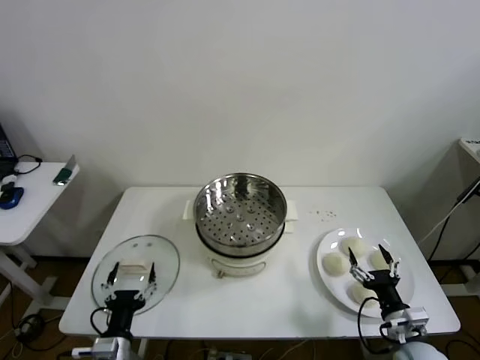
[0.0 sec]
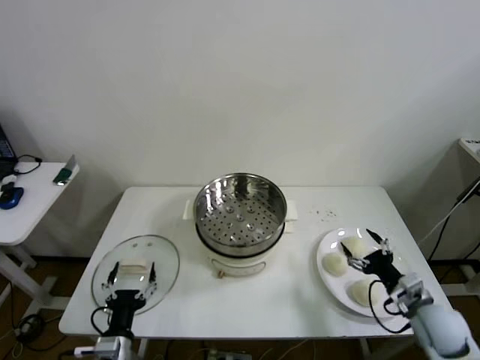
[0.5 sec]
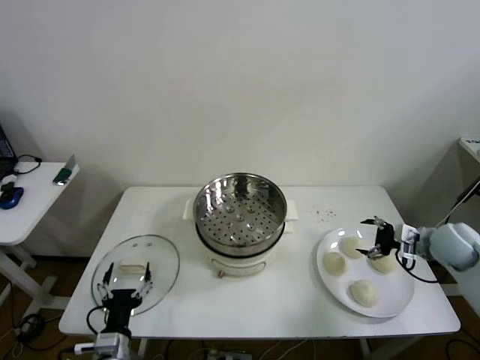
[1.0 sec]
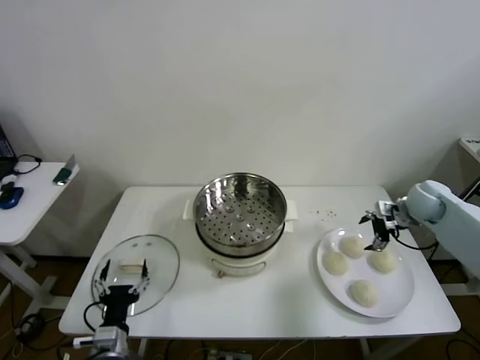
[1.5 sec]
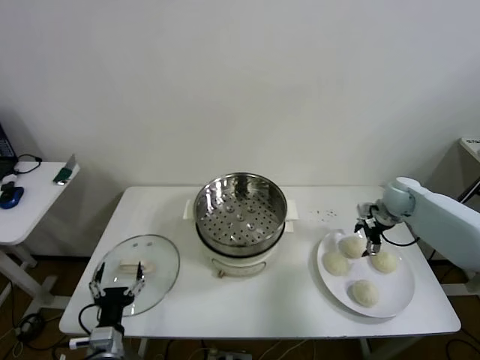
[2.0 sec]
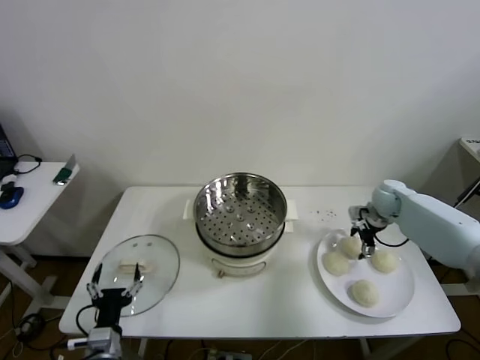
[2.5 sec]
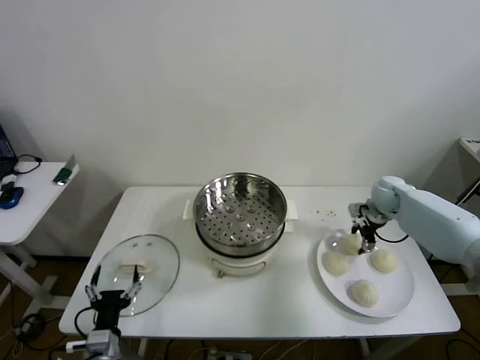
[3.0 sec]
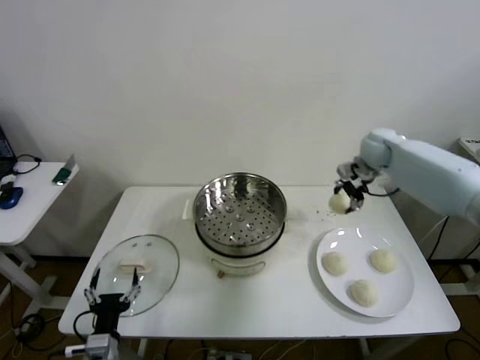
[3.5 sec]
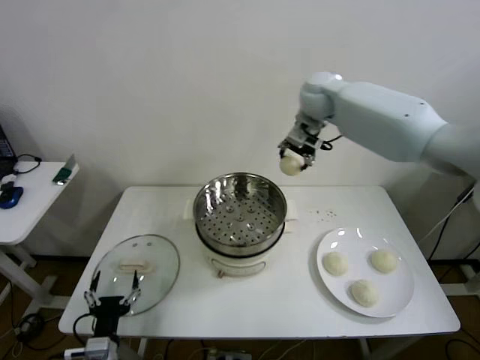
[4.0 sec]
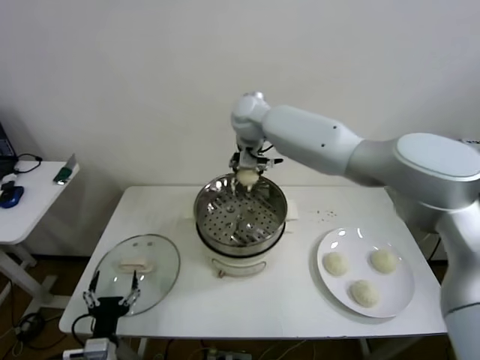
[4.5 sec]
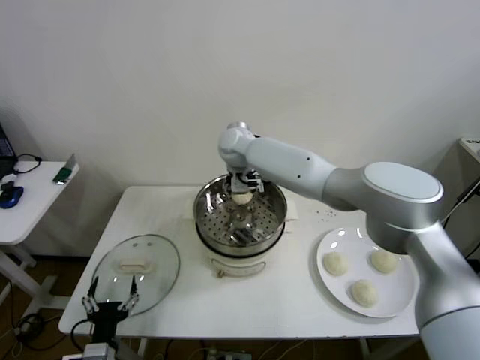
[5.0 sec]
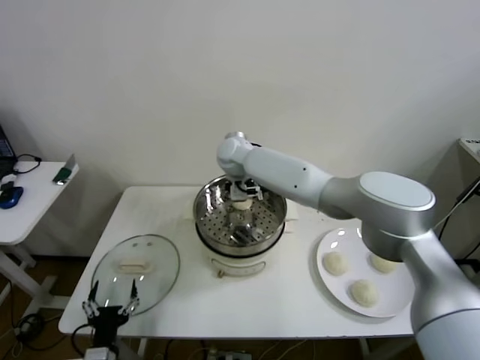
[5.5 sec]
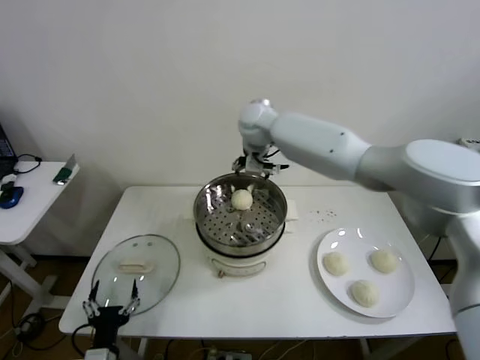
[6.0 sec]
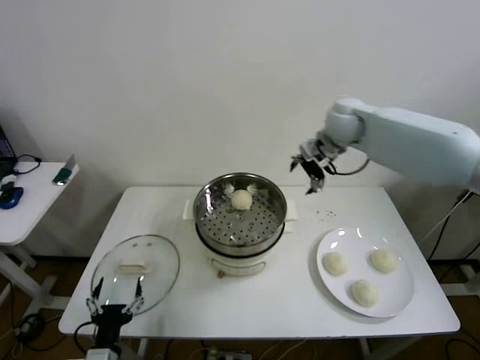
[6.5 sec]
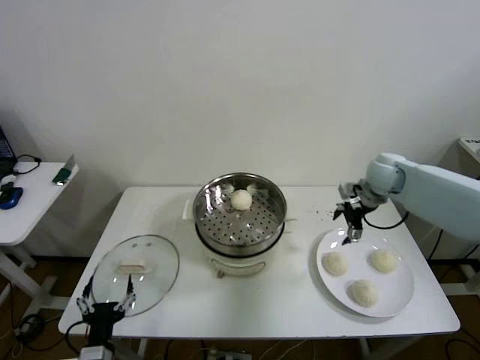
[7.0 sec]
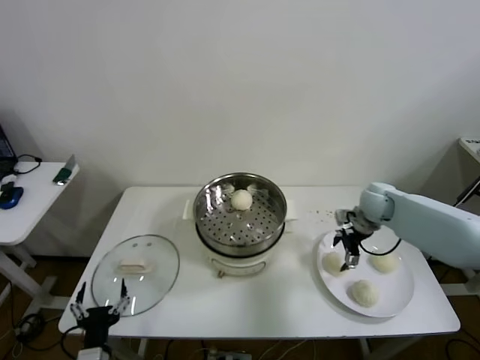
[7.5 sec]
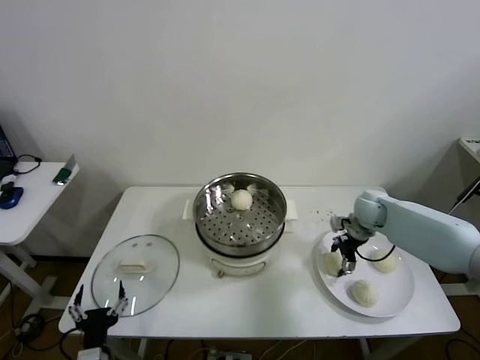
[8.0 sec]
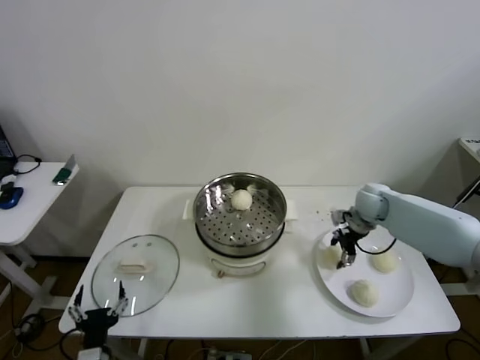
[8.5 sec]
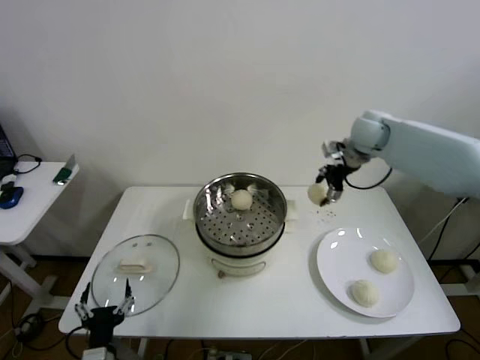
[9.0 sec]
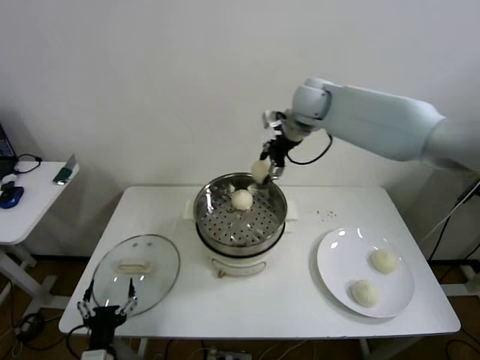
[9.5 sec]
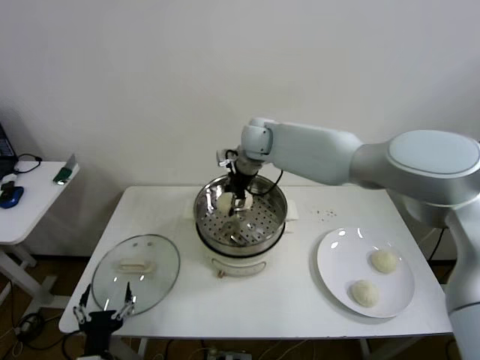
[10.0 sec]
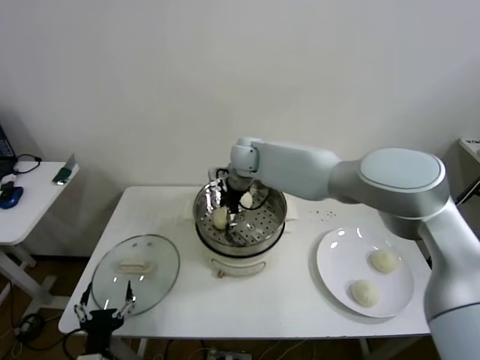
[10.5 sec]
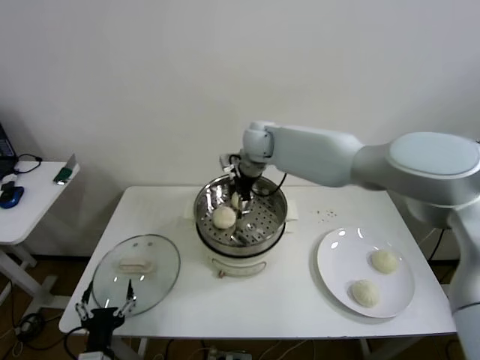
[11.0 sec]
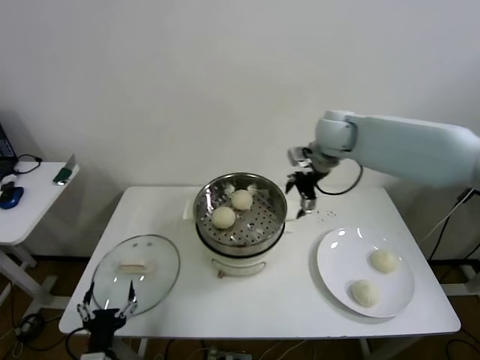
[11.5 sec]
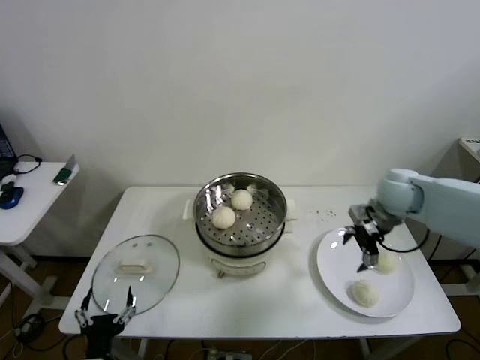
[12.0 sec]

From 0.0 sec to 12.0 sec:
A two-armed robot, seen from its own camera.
Step, from 0.0 sec to 2.5 sec: Grasp the baozi in the plate with right gripper.
Step, from 3.0 sec to 5.5 sec: Place the baozi on the steamer with right gripper.
Step, from 6.0 sec to 8.0 sec: Grasp the baozi in the plate with right gripper.
Step, from 8.5 sec to 10.5 sec: Place the baozi on the steamer with right gripper.
From 2.0 sec to 4.0 sec: The right gripper travels to the left and upward by some 40 cm, and closes.
From 4.0 sec to 6.0 sec: The right gripper goes roughly 5 cm to the left, and opens up.
From 6.0 sec to 8.0 sec: The right gripper heads to the right and downward, covering roughly 35 cm, and closes its fingers.
From 8.0 sec to 10.0 sec: The right gripper goes some 35 cm to the left and upward.
From 10.0 sec to 12.0 sec: The right gripper goes approximately 30 cm to the right, and opens up.

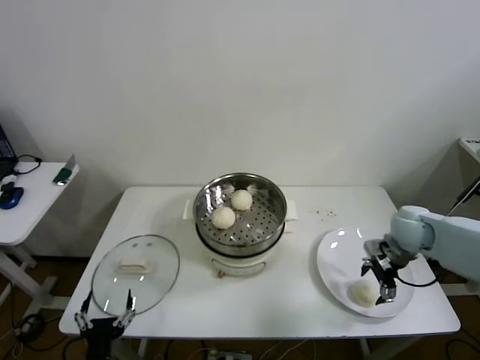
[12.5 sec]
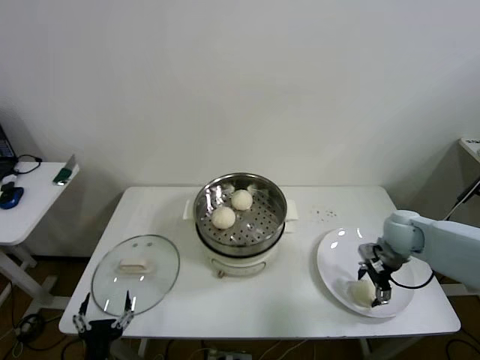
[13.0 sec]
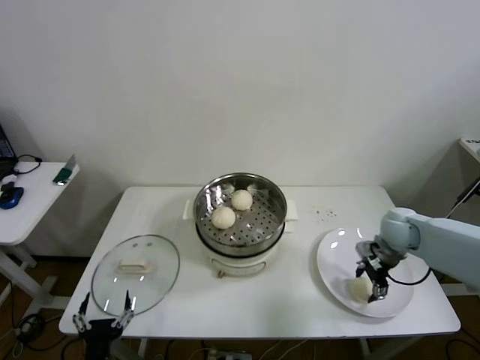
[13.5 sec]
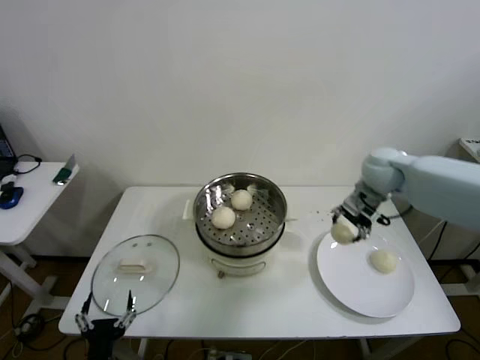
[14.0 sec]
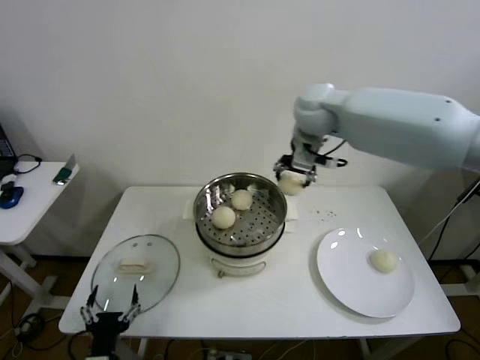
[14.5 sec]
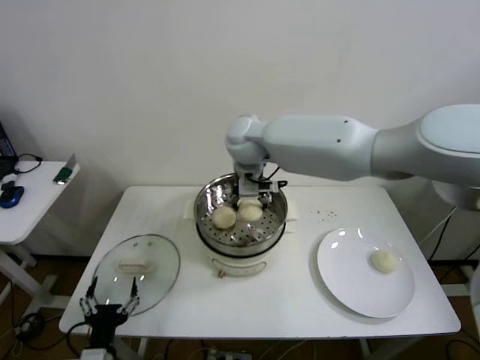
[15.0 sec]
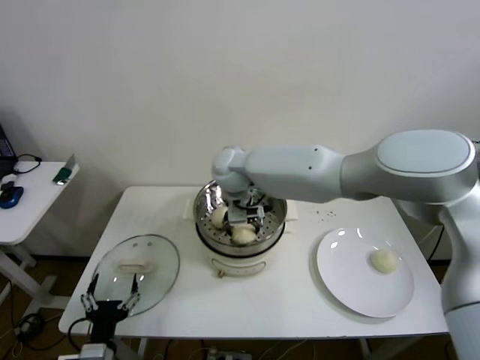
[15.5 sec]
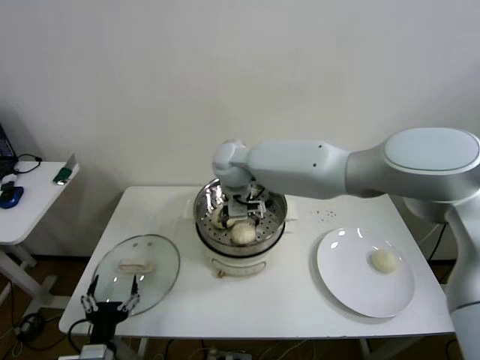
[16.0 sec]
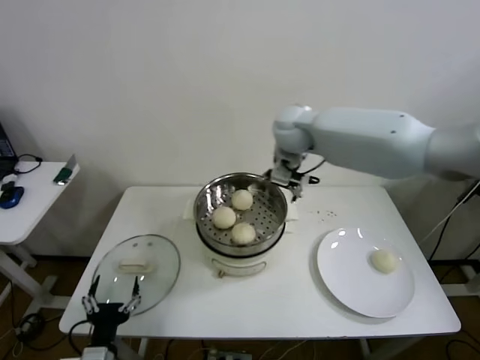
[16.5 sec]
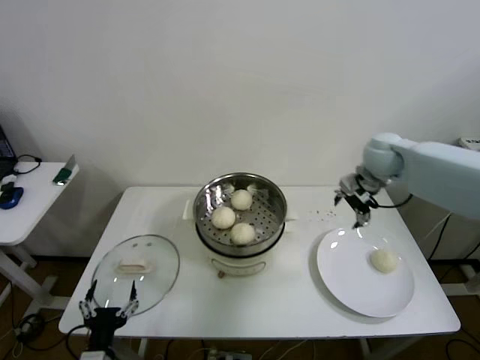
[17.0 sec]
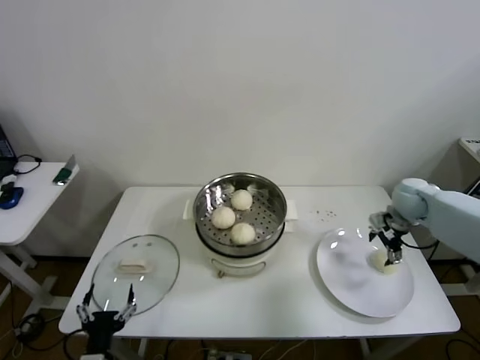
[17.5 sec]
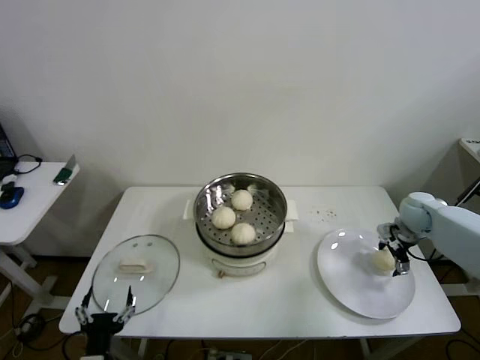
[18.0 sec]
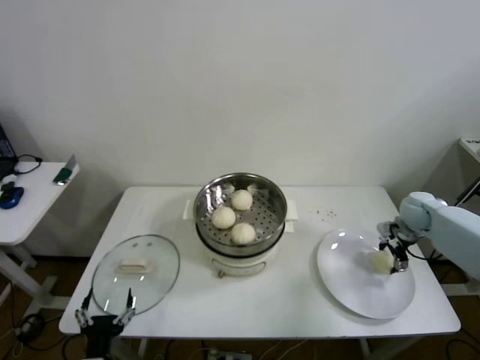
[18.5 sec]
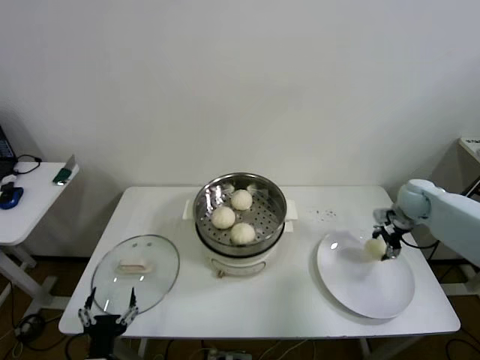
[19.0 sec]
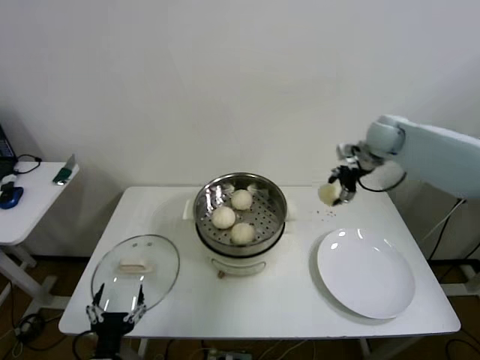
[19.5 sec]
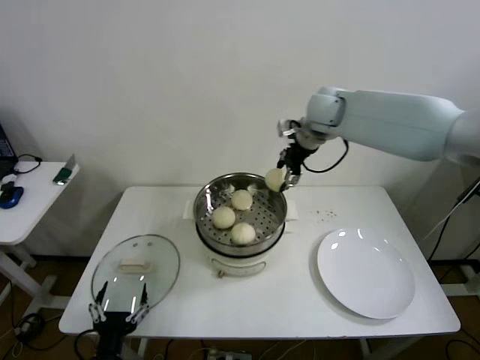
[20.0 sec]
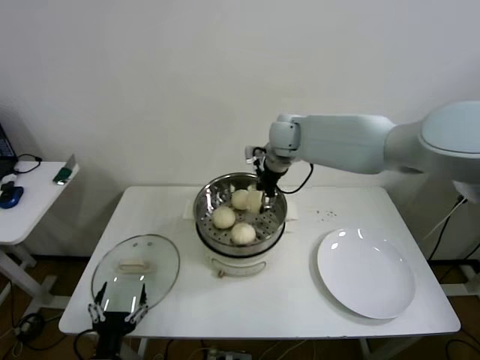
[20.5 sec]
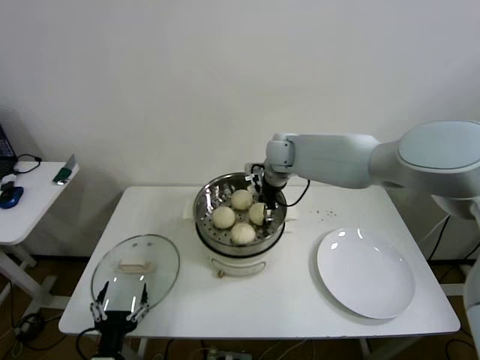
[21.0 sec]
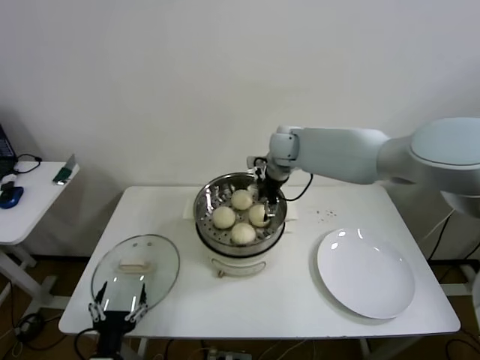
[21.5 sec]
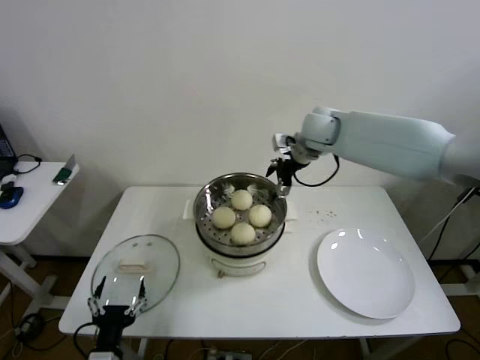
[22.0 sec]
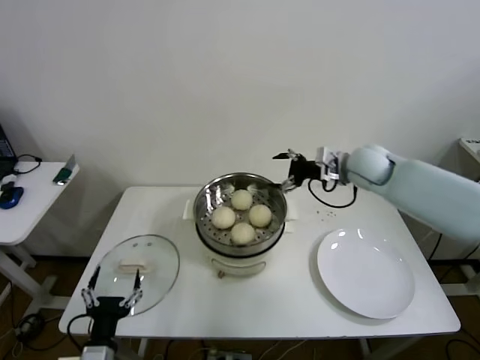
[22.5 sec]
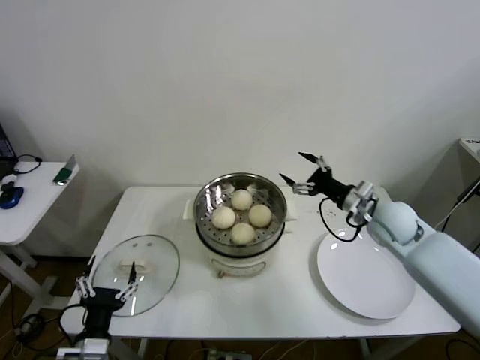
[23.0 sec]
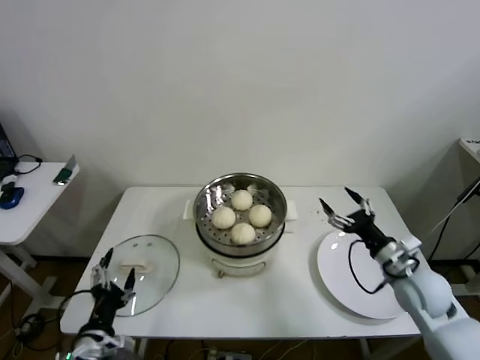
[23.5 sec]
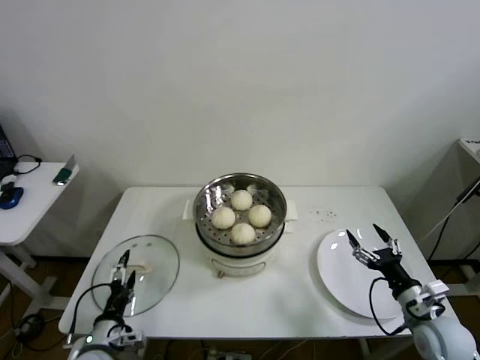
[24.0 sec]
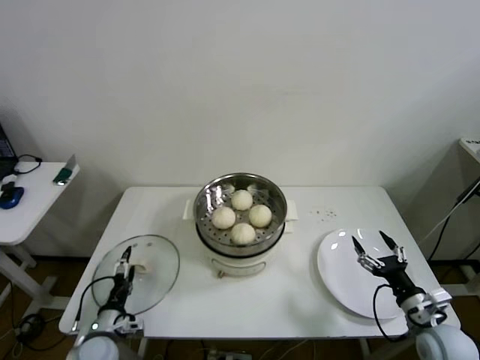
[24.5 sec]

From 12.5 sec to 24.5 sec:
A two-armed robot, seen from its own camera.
Step, from 13.0 sec to 16.0 sec: Place the baozi on the steamer with right gripper.
Step, from 16.5 sec to 18.0 sec: Grasp the baozi in the plate with right gripper.
Step, from 18.5 sec to 21.5 sec: Place the baozi on the steamer with right gripper.
From 12.5 sec to 14.5 sec: The right gripper heads to the left, upward and forward, covering roughly 35 cm, and closes its fingers.
From 14.5 sec to 16.5 sec: The right gripper shifts roughly 5 cm downward, goes to the left and returns, some 15 cm each way, and opens up.
From 16.5 sec to 18.5 sec: The right gripper heads to the right and downward, covering about 40 cm, and closes.
From 18.5 sec to 20.5 sec: The right gripper heads to the left and upward, covering some 40 cm.
From 20.5 sec to 22.5 sec: The right gripper is displaced to the right and backward by roughly 20 cm, and opens up.
From 22.5 sec to 24.5 sec: The right gripper travels backward, downward and to the right by approximately 40 cm, while the left gripper heads forward, downward and to the left, covering approximately 15 cm.

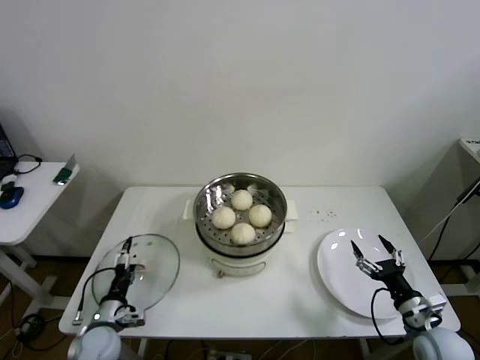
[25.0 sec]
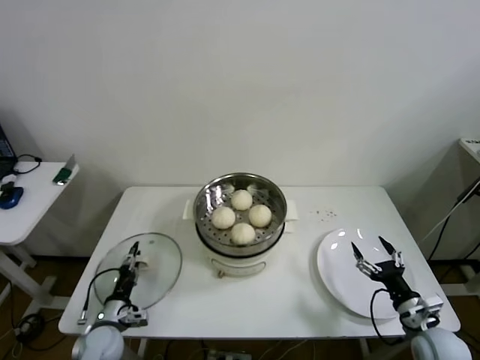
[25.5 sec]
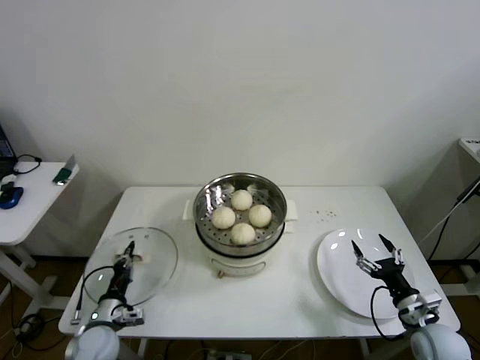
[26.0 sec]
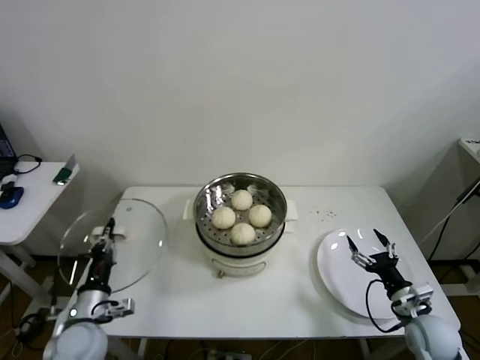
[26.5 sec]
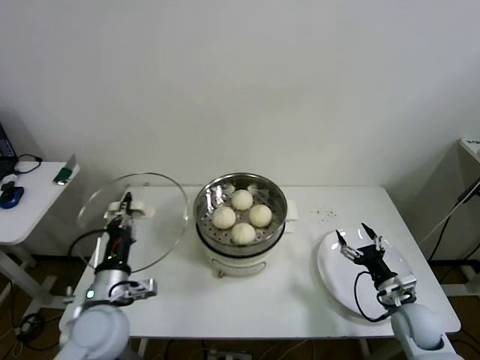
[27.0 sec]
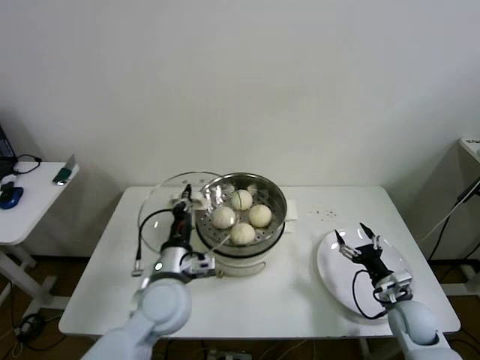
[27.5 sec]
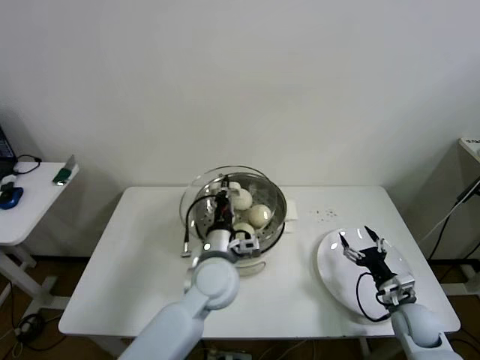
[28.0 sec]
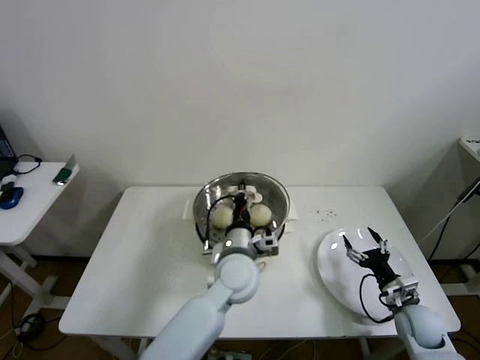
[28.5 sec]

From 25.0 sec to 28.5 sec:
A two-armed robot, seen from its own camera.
From 25.0 sec to 27.0 sec: The left gripper moves upward, about 20 cm, and closes; the right gripper heads forward, covering roughly 5 cm.
From 27.0 sec to 28.5 sec: The left gripper is displaced to the right and forward by approximately 30 cm.
